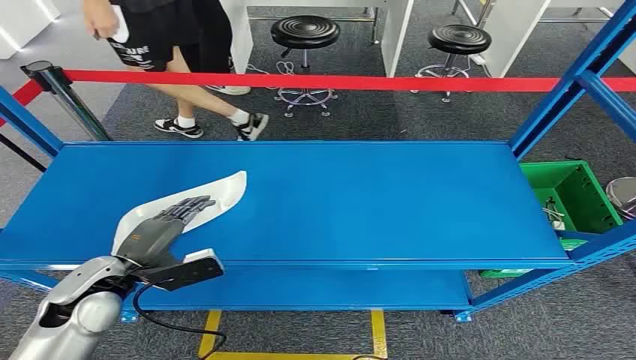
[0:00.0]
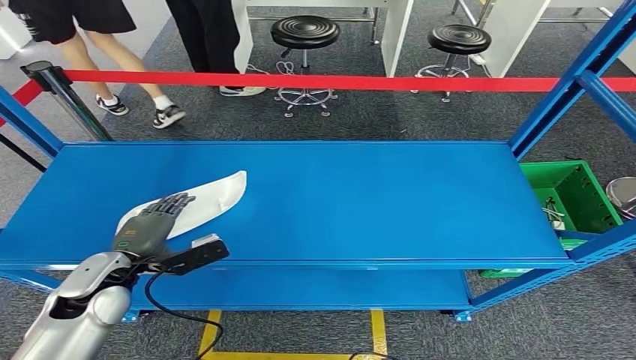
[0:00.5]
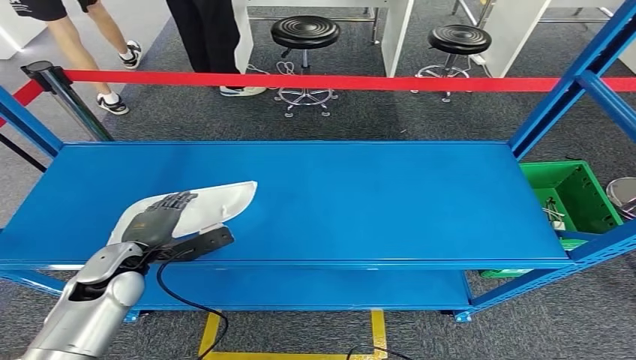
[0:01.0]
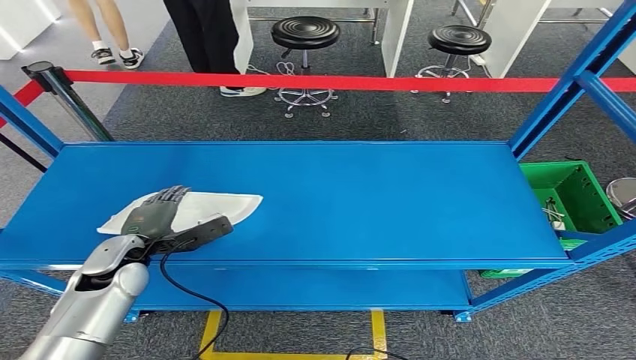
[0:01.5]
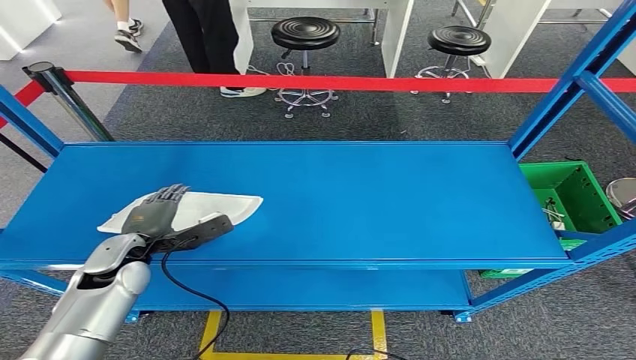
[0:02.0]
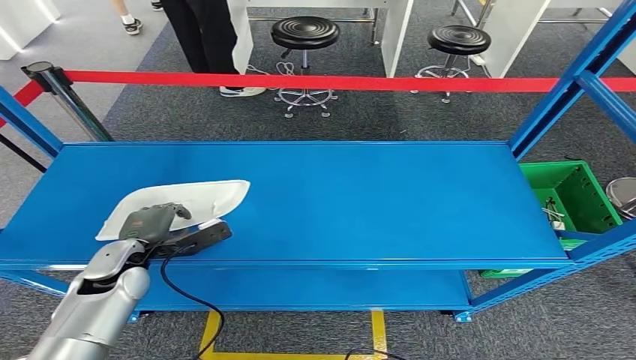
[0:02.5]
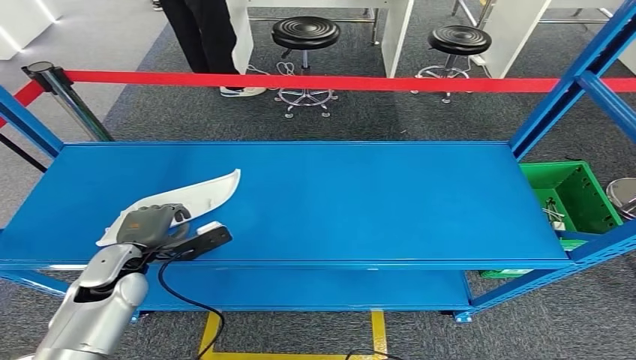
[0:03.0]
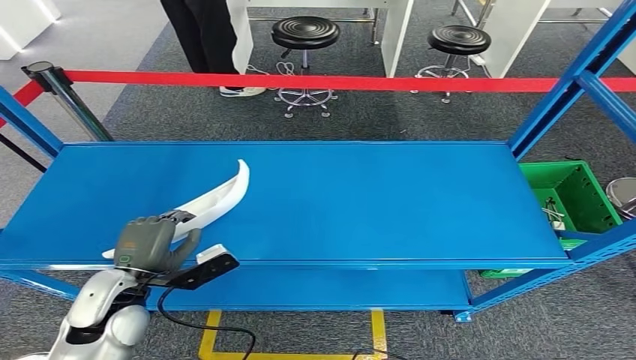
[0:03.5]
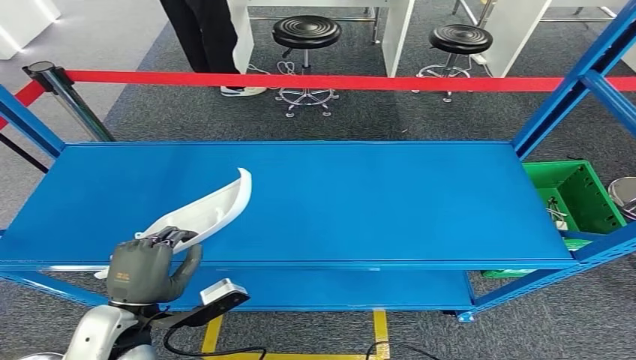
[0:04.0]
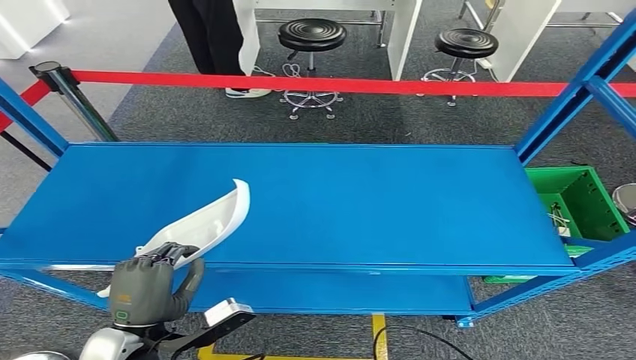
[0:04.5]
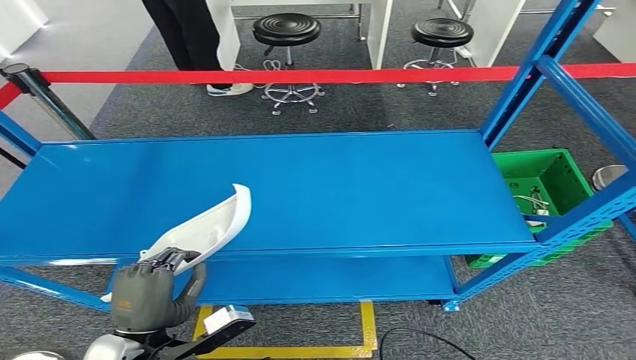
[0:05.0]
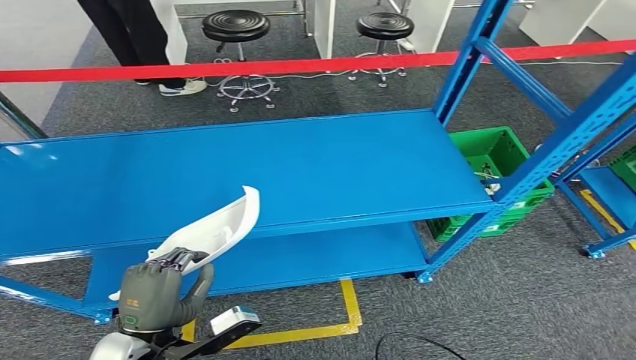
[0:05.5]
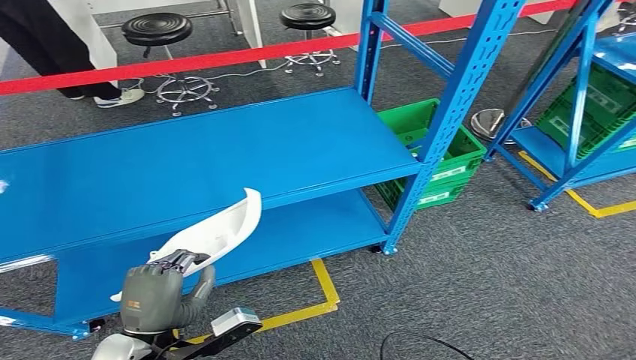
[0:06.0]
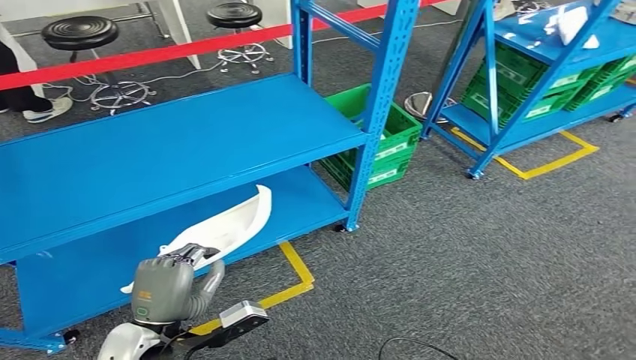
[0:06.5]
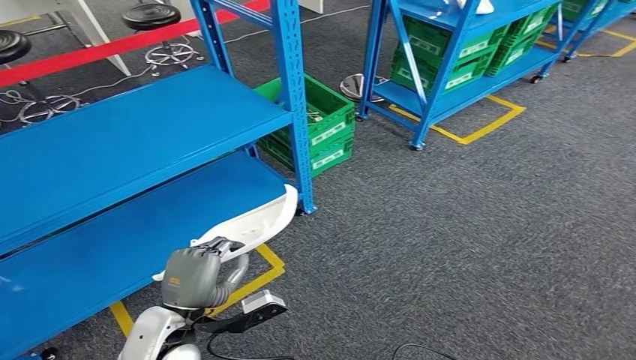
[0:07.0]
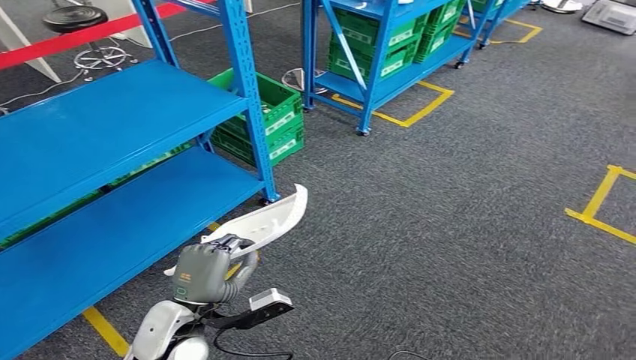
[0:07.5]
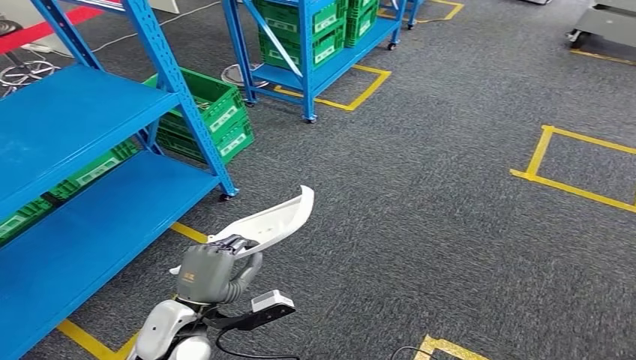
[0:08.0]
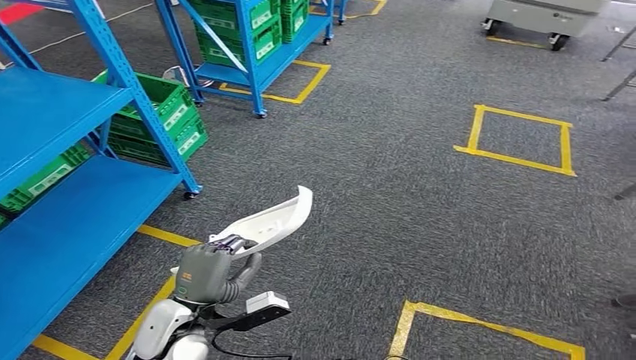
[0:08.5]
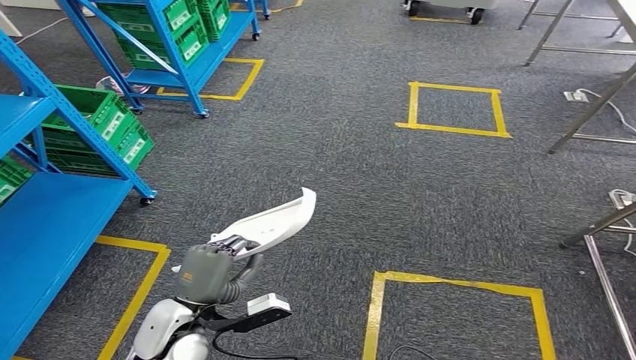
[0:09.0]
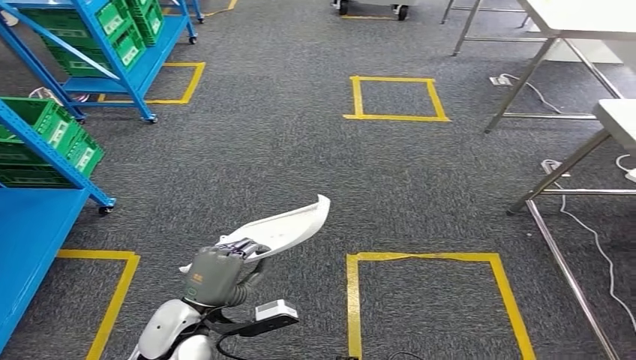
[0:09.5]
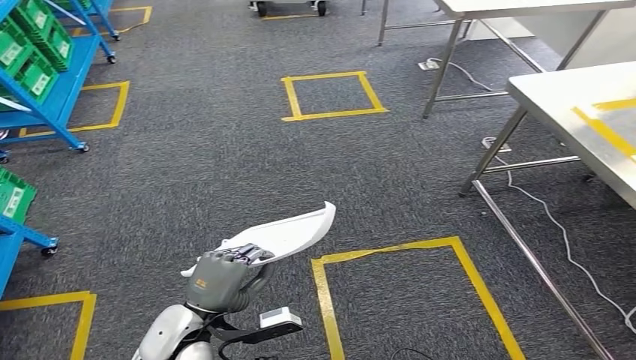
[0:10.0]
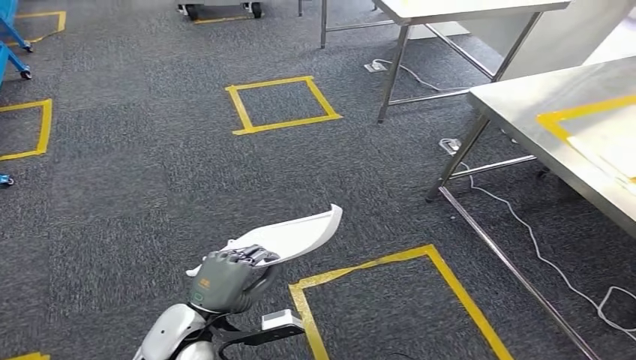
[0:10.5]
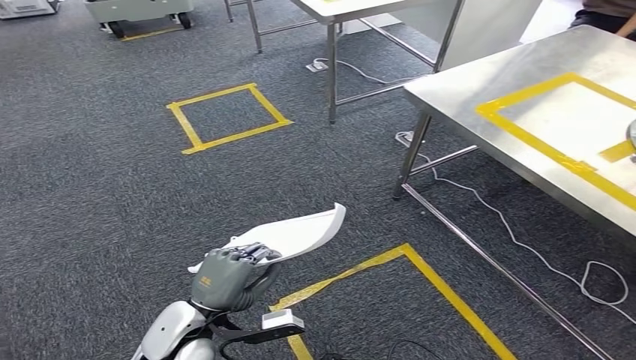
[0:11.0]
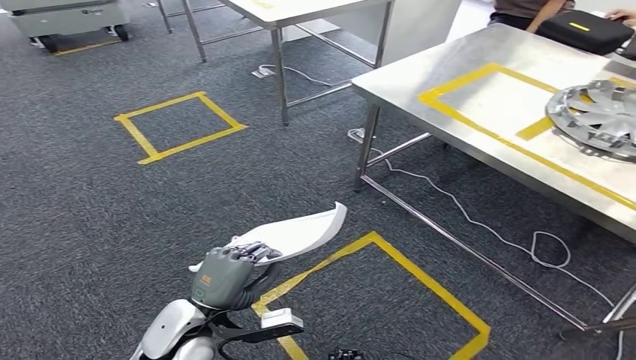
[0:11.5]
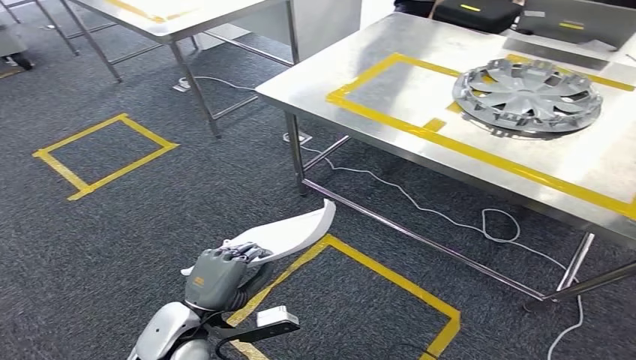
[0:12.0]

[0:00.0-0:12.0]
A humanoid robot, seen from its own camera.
Step, 0:00.0 to 0:05.0: Pick up the small component from the shelf.
0:02.0 to 0:04.0: The left hand goes approximately 15 cm backward and to the right.

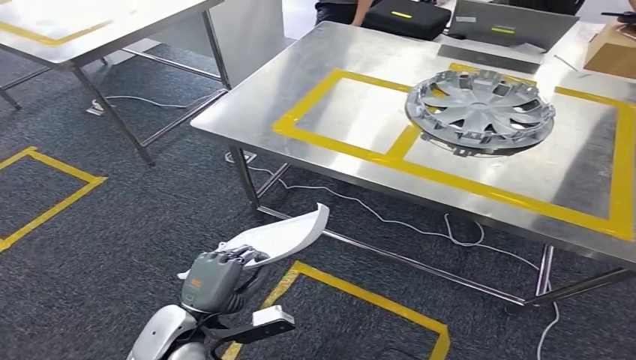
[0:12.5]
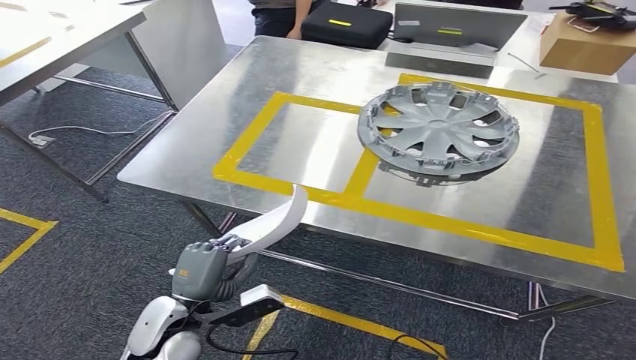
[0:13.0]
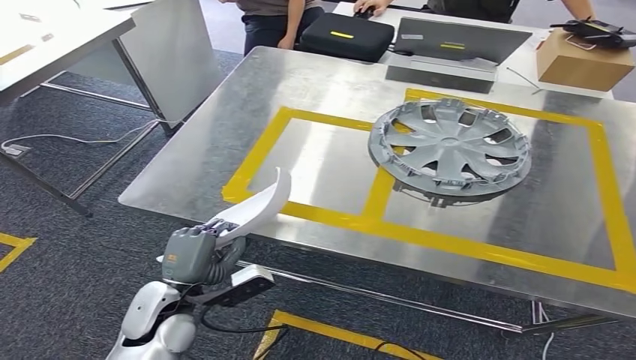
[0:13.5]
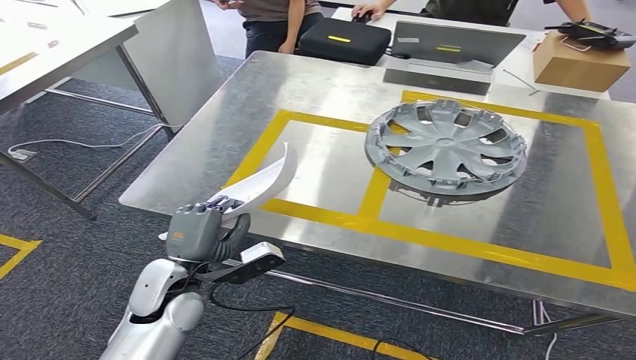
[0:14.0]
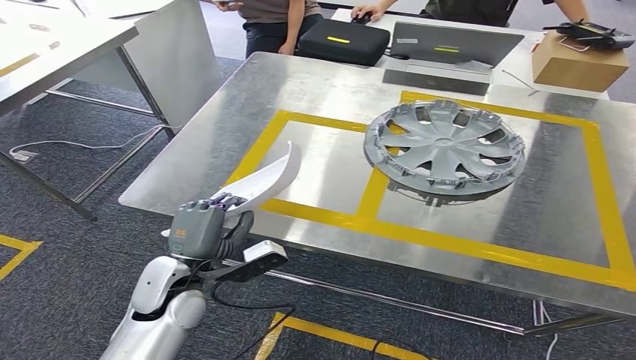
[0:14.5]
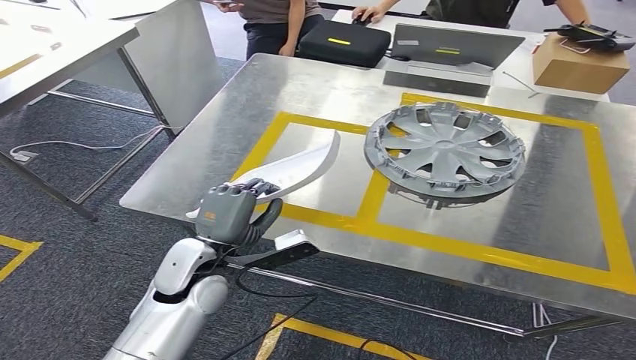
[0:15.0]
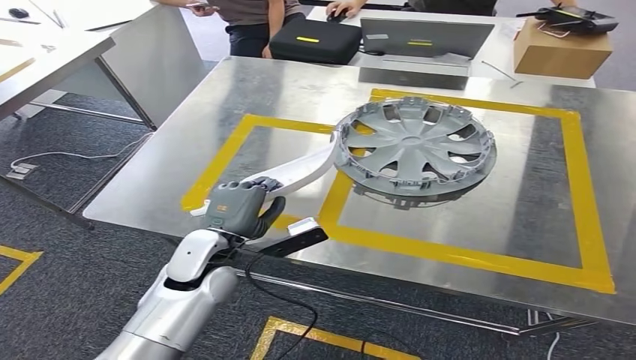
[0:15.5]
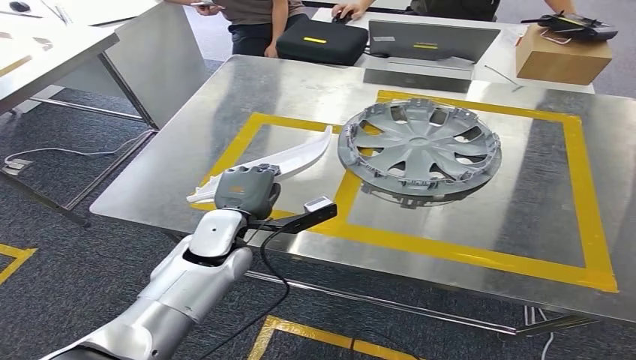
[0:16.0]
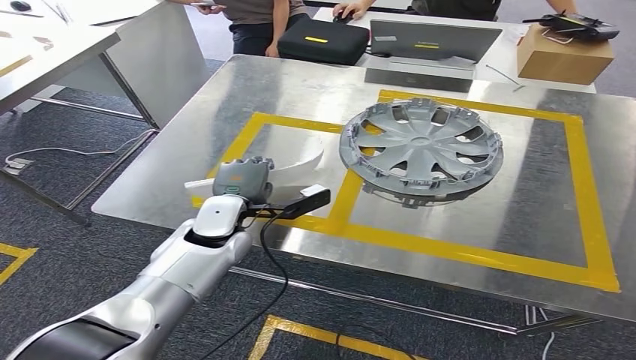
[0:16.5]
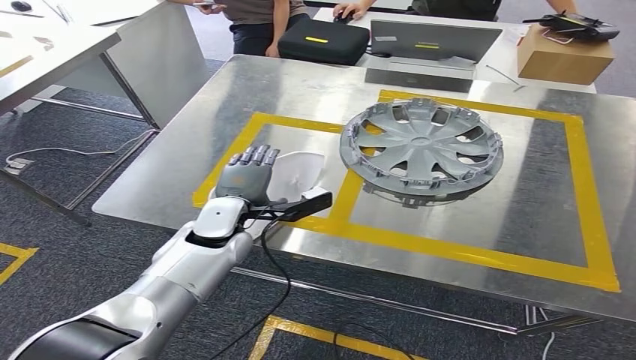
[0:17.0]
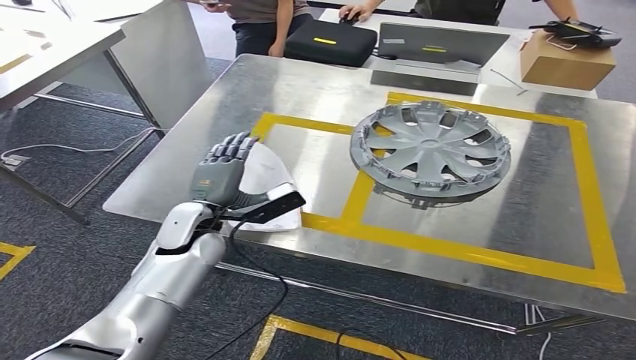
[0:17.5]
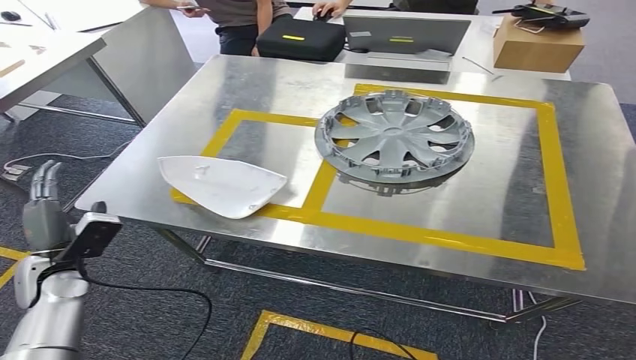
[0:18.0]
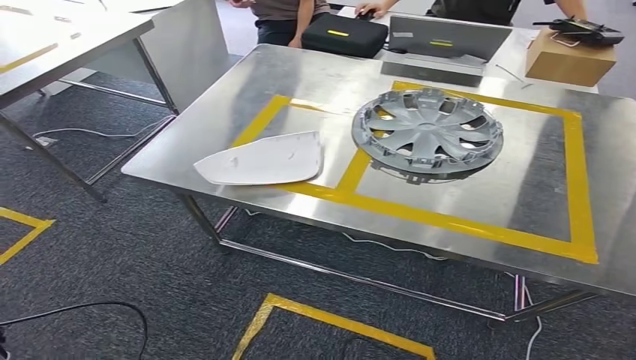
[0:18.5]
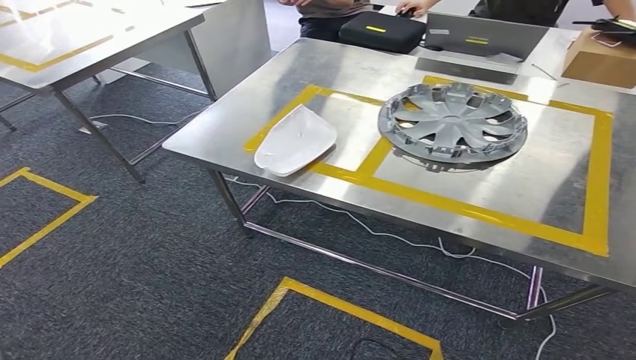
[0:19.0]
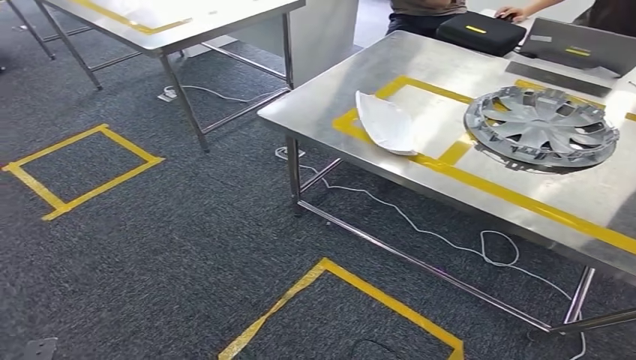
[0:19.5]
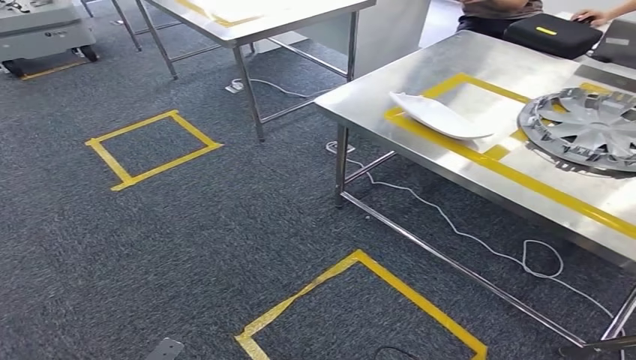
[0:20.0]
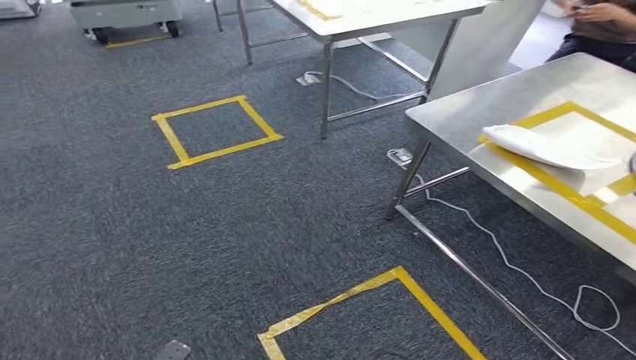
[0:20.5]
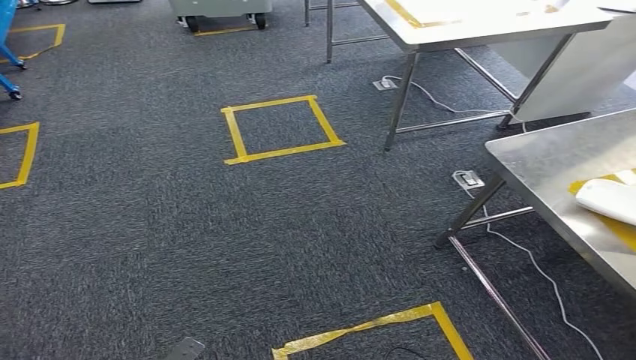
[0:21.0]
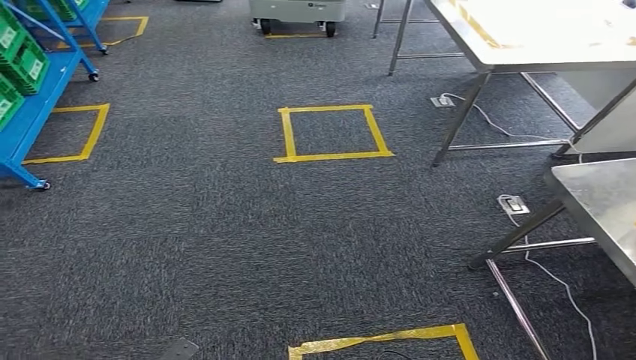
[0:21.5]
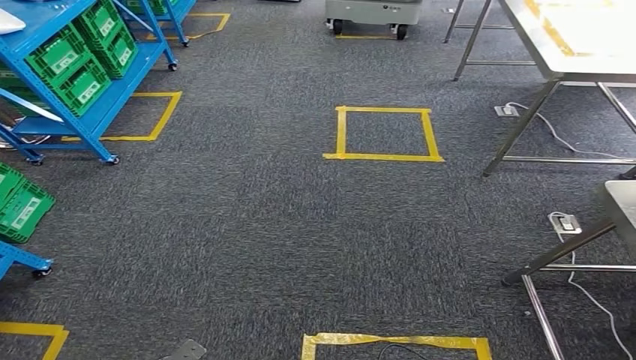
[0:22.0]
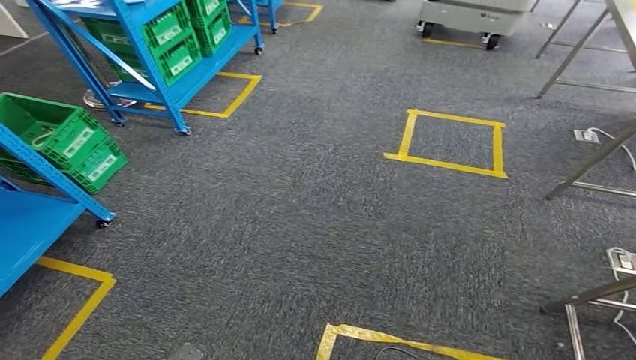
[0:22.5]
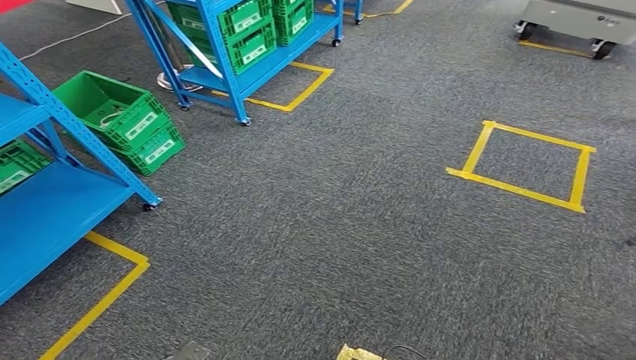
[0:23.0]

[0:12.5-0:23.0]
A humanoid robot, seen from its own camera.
Step, 0:14.5 to 0:19.0: Insert the small component into the corresponding slot on the workbench.
